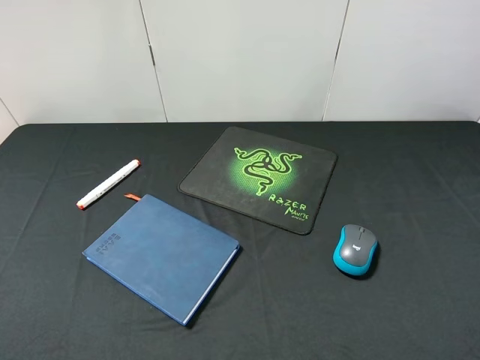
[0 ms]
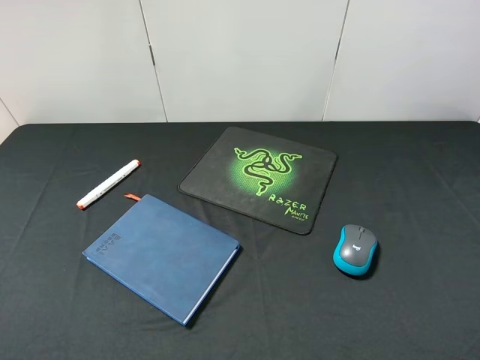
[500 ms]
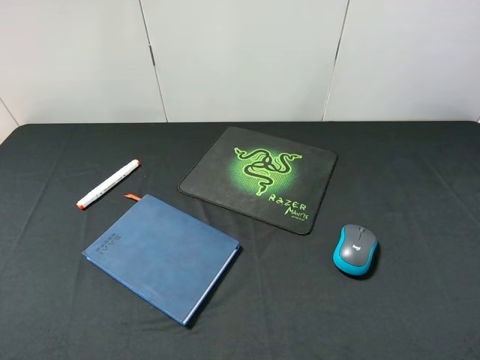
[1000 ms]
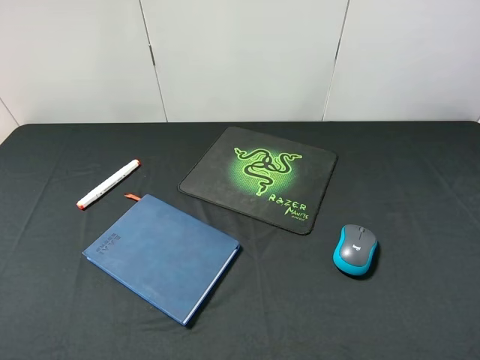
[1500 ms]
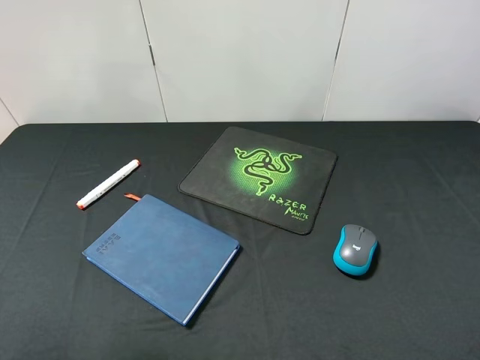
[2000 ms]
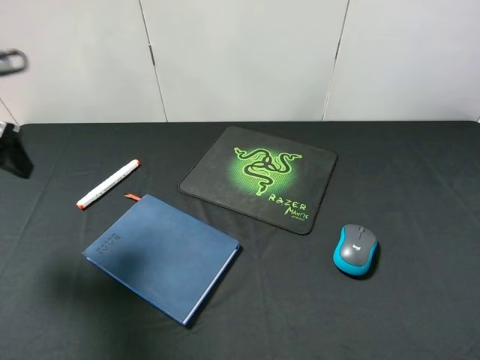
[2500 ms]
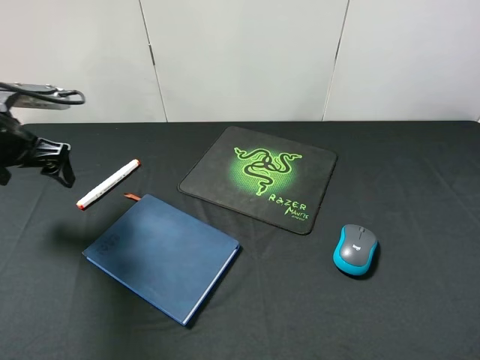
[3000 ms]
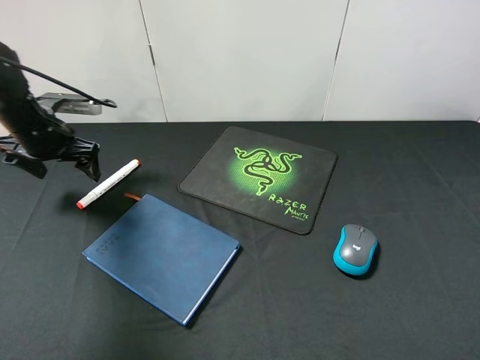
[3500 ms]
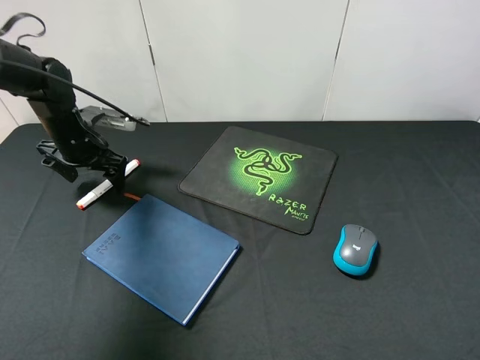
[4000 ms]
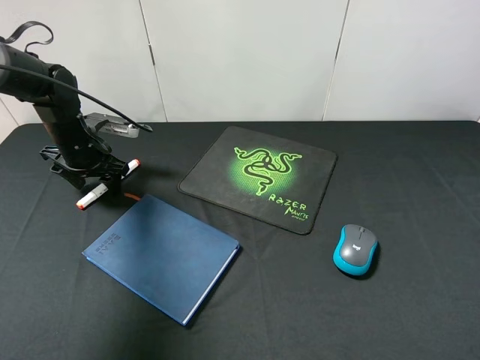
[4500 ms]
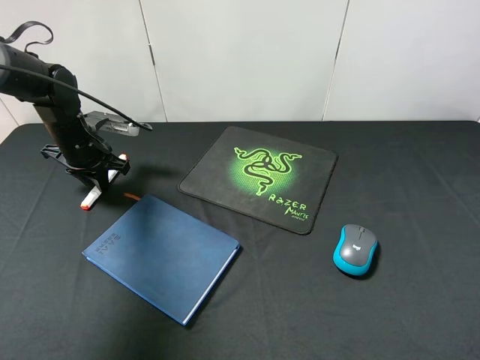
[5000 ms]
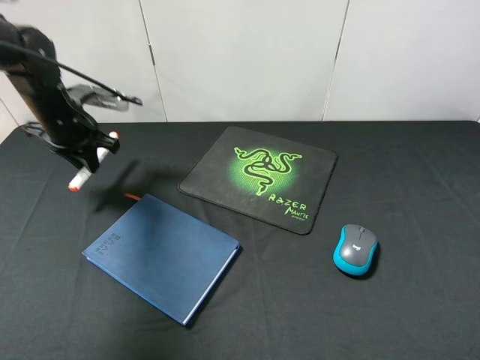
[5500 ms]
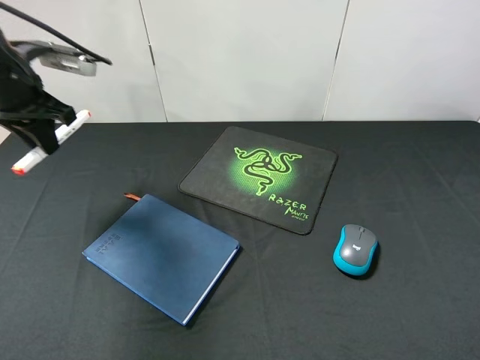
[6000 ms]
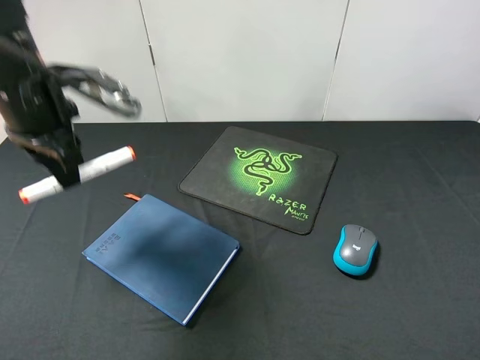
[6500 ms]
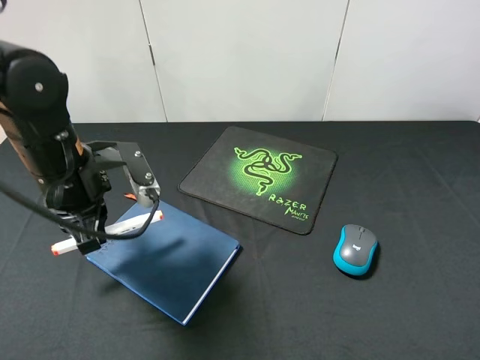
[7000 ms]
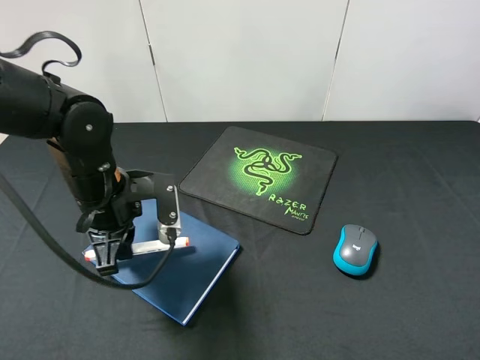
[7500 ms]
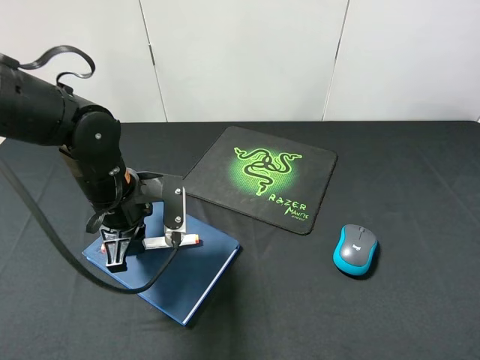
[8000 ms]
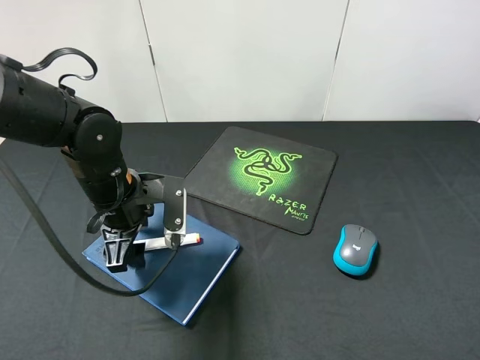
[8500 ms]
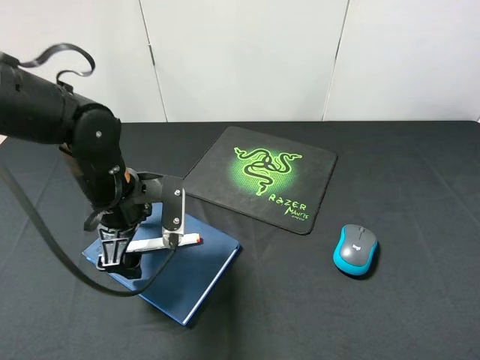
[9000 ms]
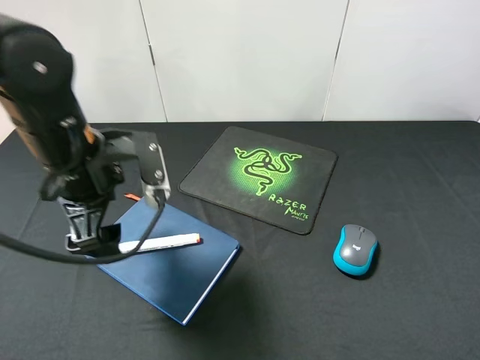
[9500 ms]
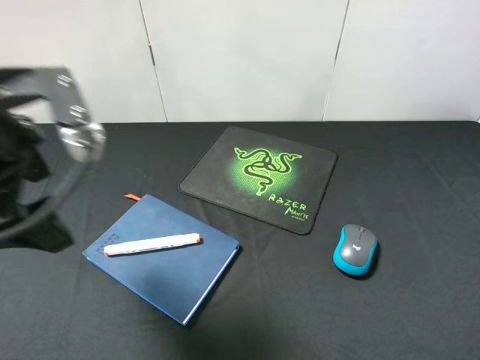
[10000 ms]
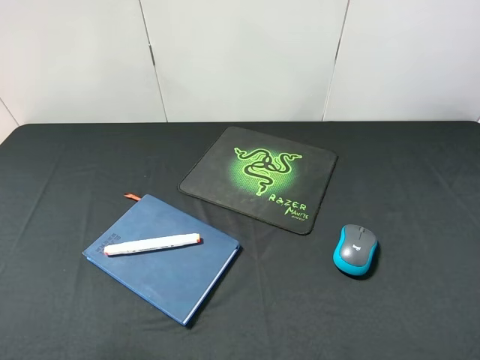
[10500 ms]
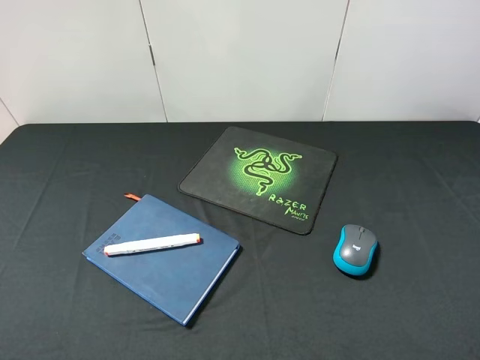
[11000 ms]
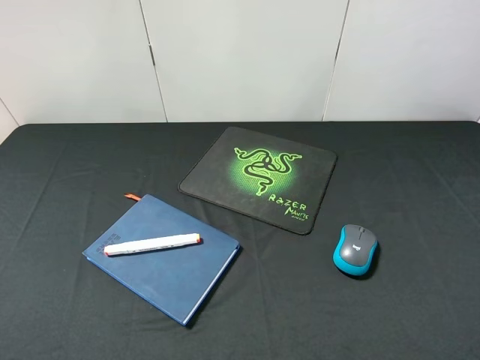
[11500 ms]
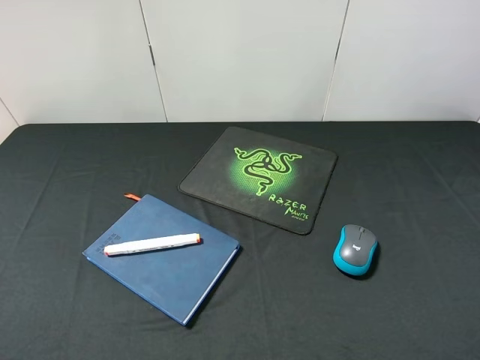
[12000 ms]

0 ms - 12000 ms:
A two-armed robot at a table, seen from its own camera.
Step, 0 ms - 5500 ms: Pick up the marker pen with left gripper.
Step, 6000 ms - 9000 ms: Place the marker pen on the notebook with left gripper.
2000 ms - 4000 ms: The left gripper is displaced forward and downward by roughly 35 cm.
4000 ms - 6000 ms: The left gripper shifts some 15 cm upward and backward, and closes up.
6000 ms - 8000 ms: The left gripper heads downward, to the right and backward, covering approximately 20 cm.
8000 ms - 10000 ms: The left gripper moves upward and backward, about 20 cm, and opens up.
10000 ms - 12000 ms: The left gripper heads backward and to the left, covering approximately 20 cm.

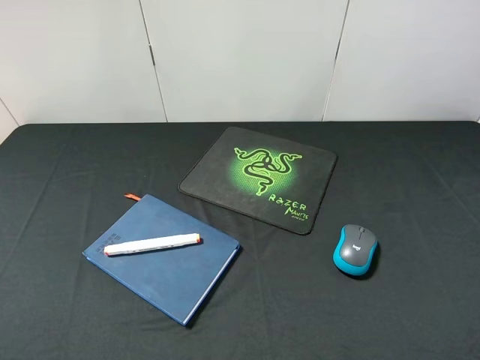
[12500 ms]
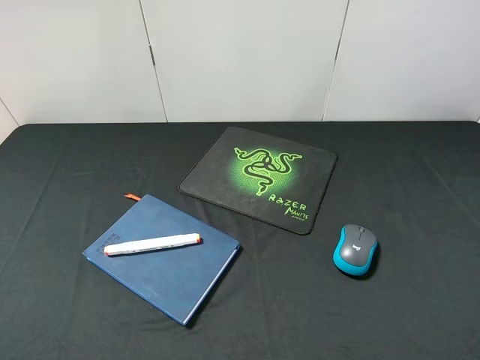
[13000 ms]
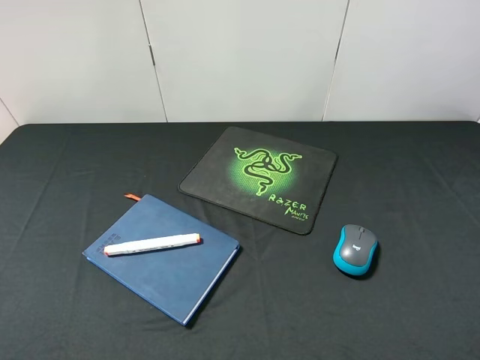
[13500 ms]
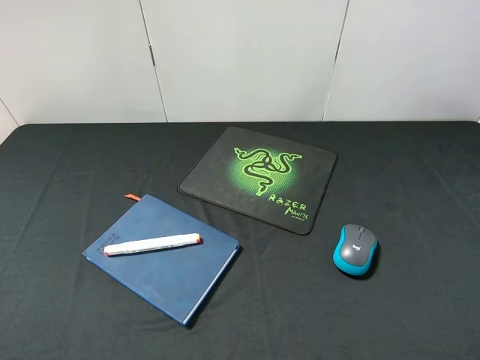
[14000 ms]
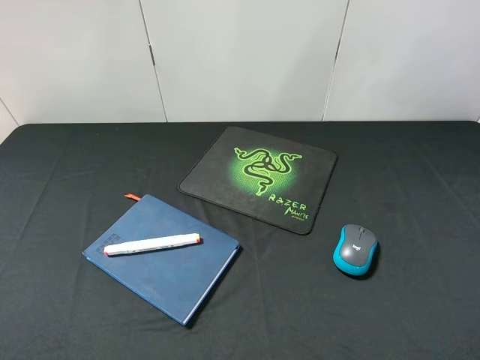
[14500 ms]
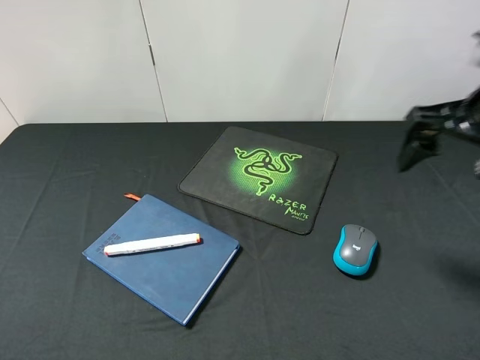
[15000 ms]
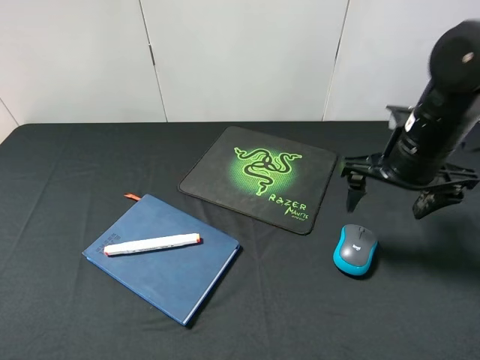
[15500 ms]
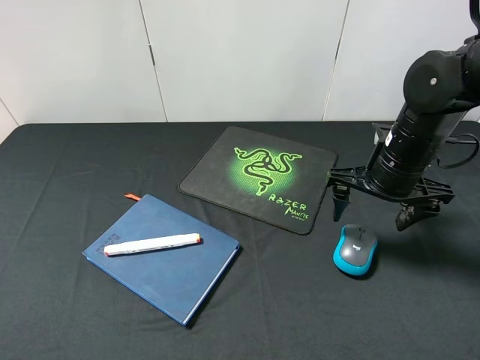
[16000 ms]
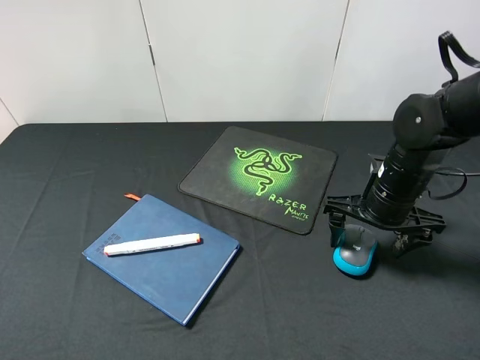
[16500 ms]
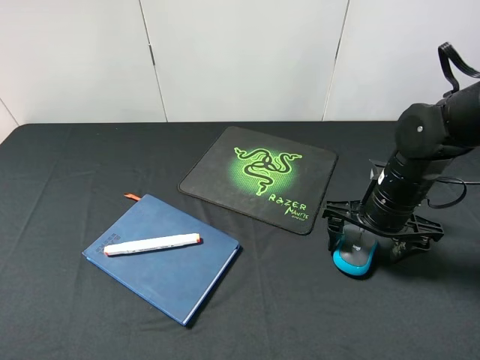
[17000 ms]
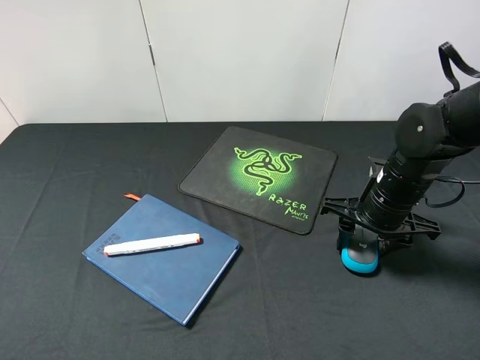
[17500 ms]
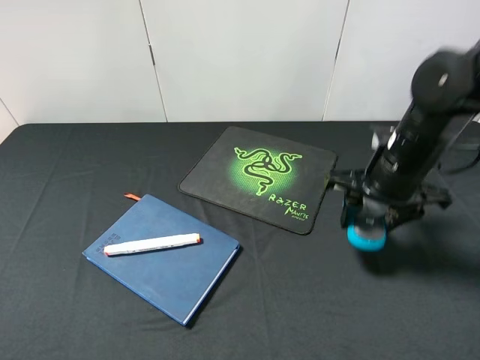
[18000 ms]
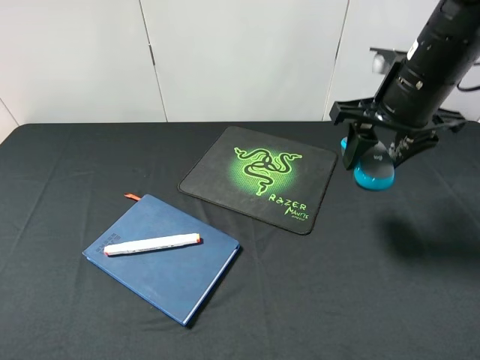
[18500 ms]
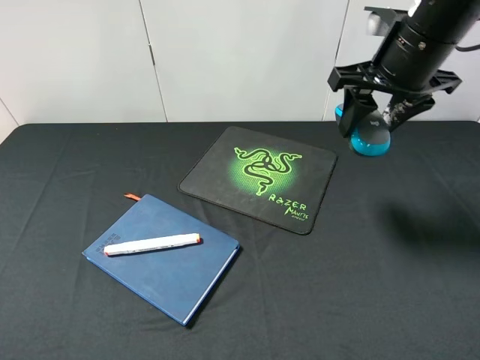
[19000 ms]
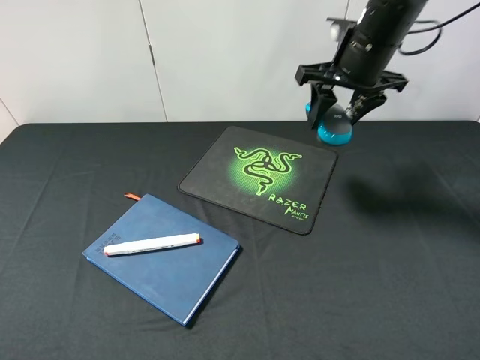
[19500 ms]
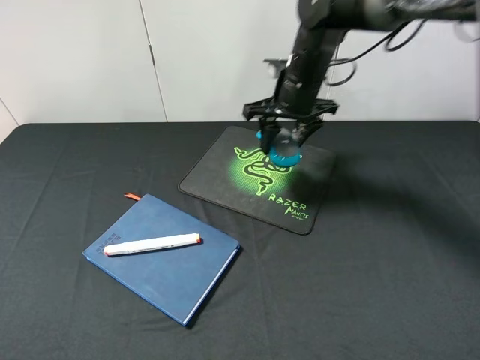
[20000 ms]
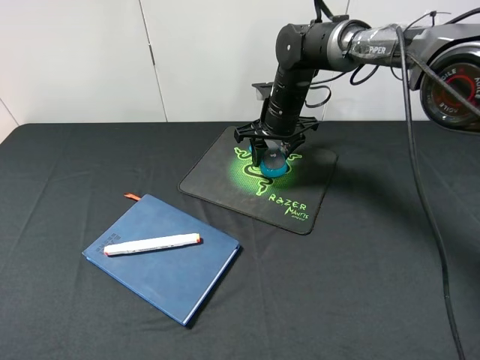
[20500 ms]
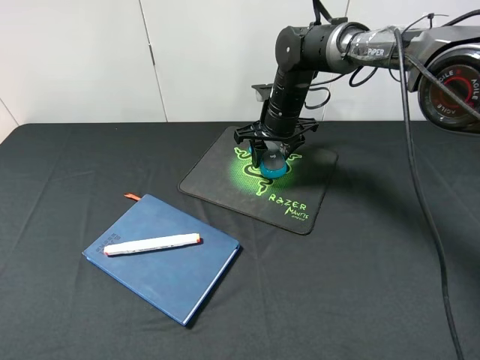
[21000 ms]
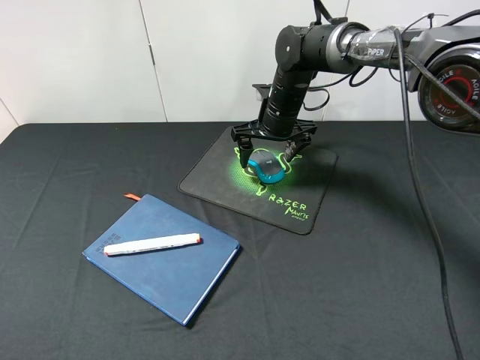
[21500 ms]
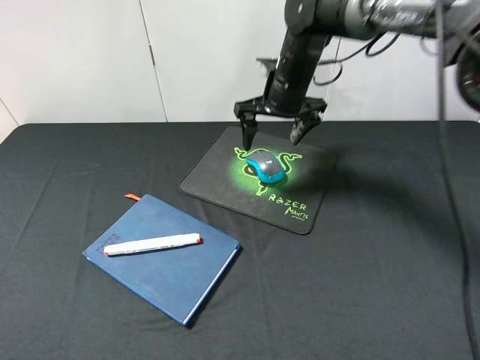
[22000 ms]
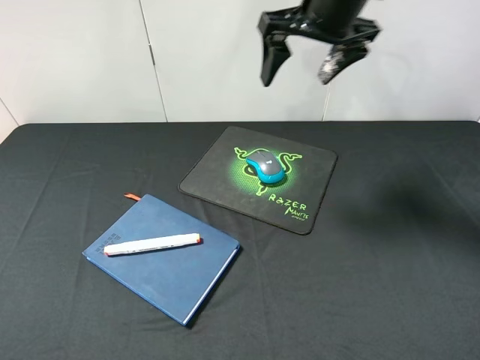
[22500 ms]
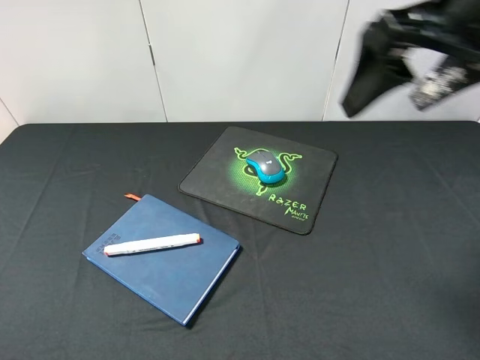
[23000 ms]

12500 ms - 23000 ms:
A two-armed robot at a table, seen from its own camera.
Step, 12500 ms - 18000 ms: Pick up the mouse with right gripper.
Step, 18500 ms - 22000 ms: Place the mouse on the mouse pad with right gripper.
14500 ms - 16500 ms: The right gripper is displaced downward and forward by approximately 25 cm.
16500 ms - 19000 ms: The right gripper is displaced upward by some 15 cm, and closes.
19000 ms - 21000 ms: The right gripper is displaced downward, forward and to the left by some 20 cm.
21000 ms - 23000 ms: The right gripper travels backward, upward and to the right by some 35 cm, and opens up.
